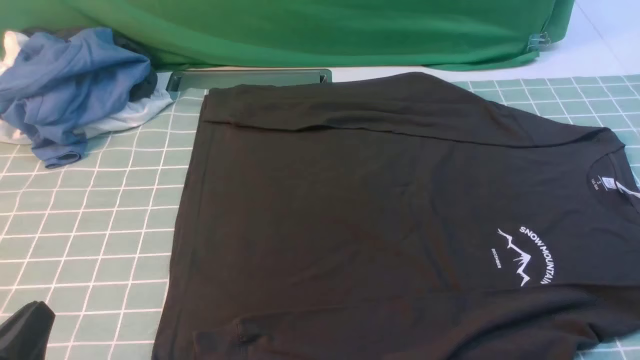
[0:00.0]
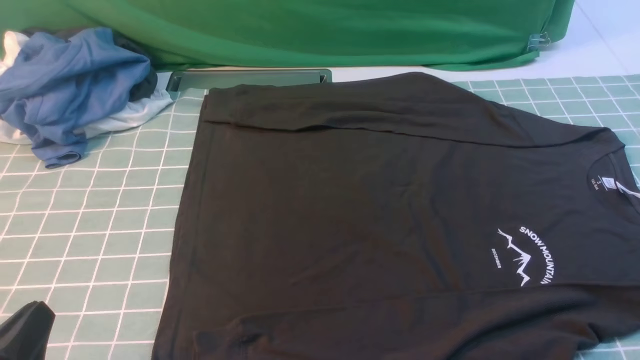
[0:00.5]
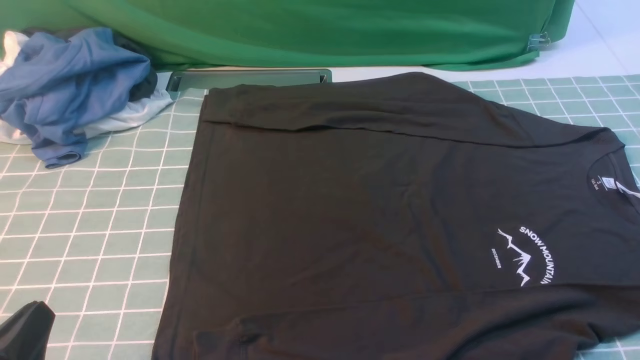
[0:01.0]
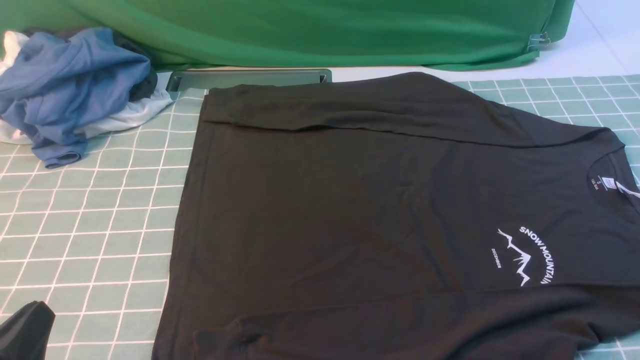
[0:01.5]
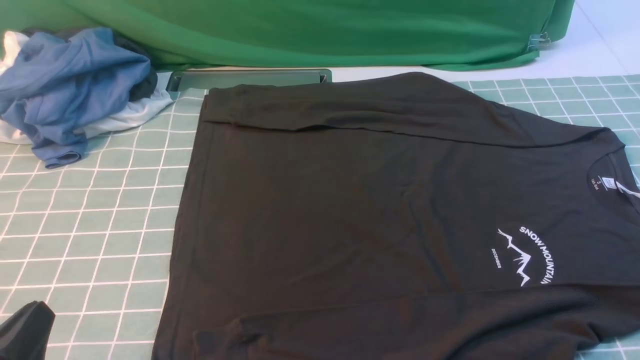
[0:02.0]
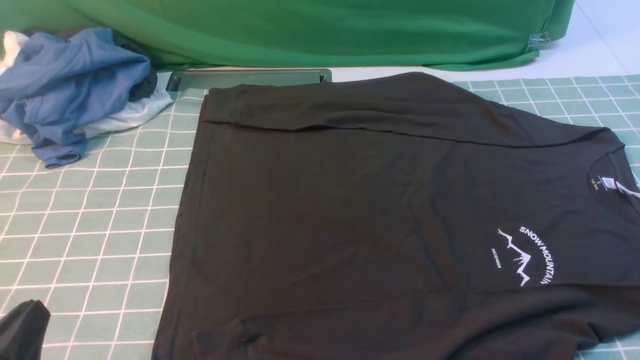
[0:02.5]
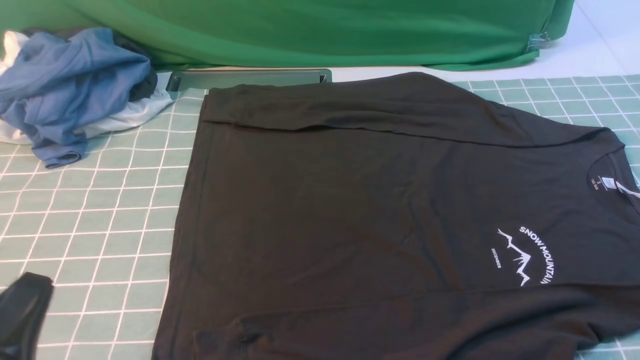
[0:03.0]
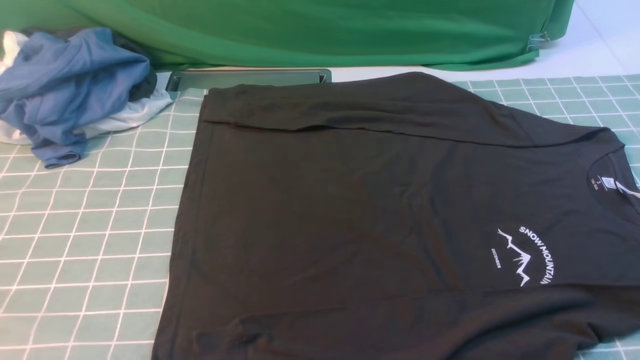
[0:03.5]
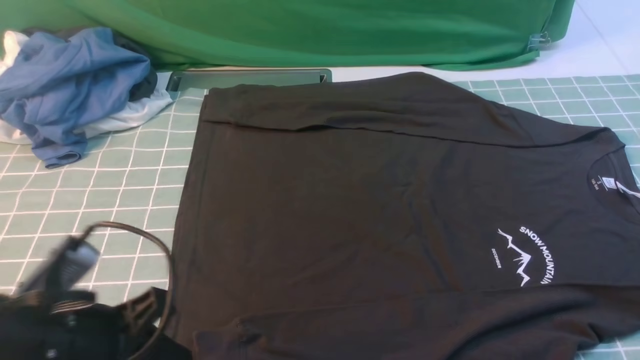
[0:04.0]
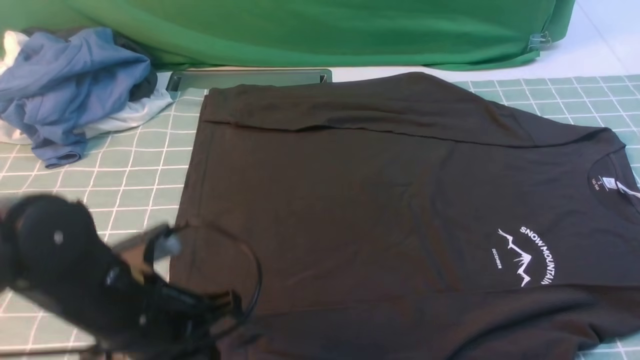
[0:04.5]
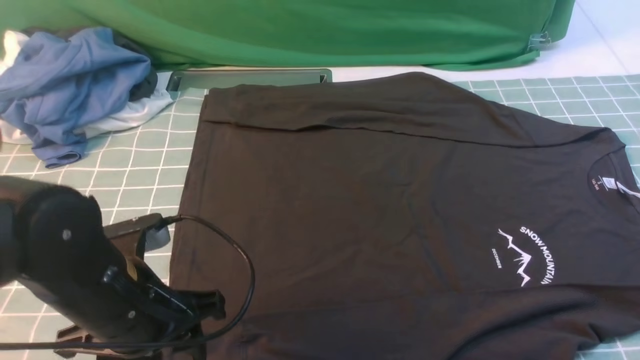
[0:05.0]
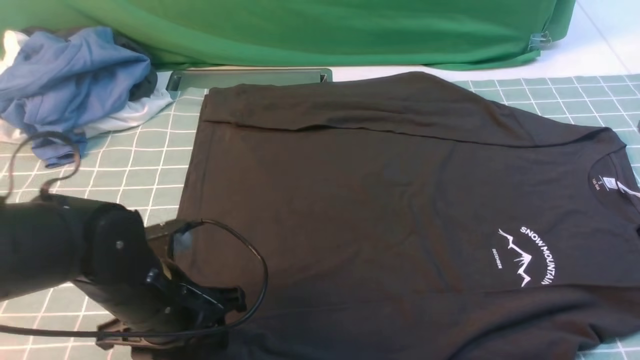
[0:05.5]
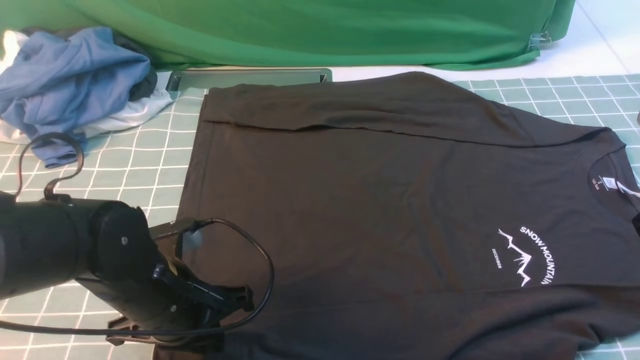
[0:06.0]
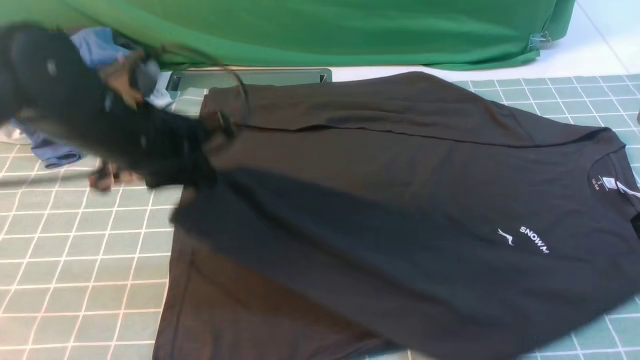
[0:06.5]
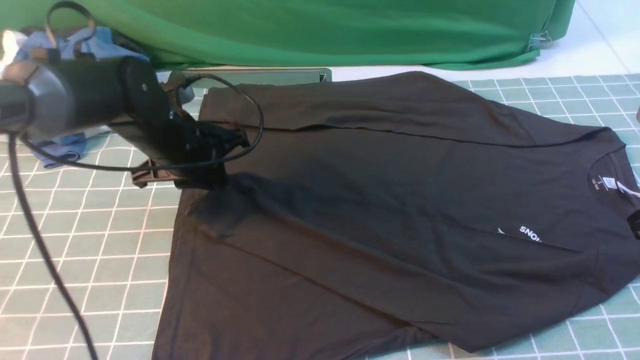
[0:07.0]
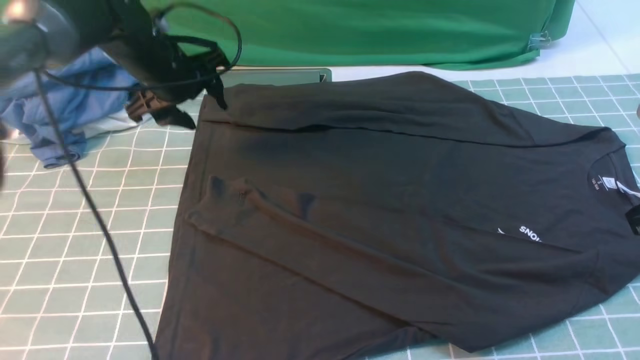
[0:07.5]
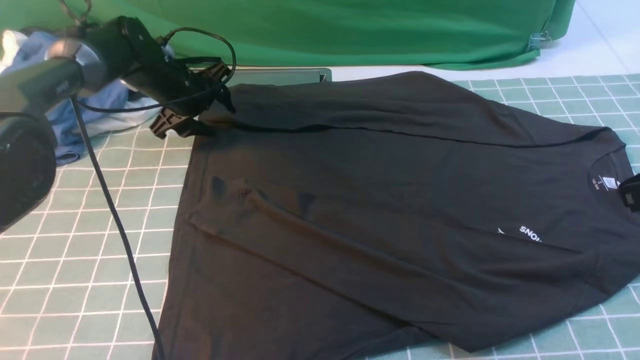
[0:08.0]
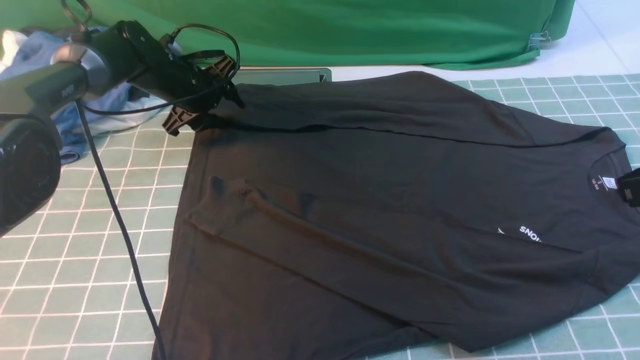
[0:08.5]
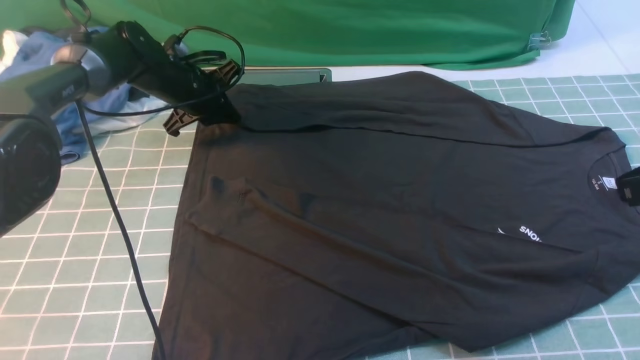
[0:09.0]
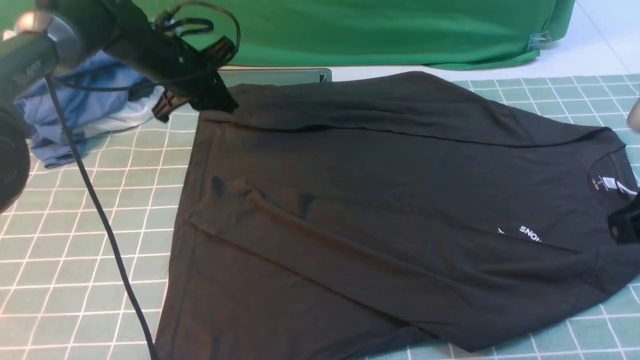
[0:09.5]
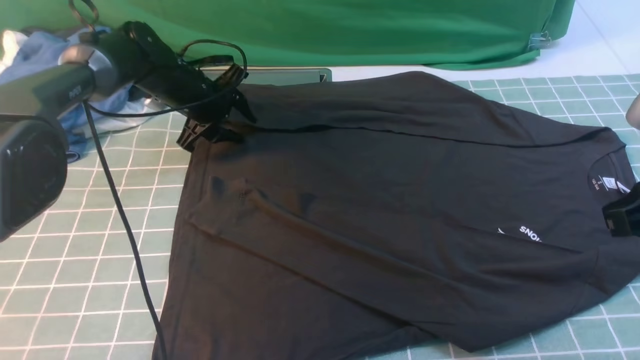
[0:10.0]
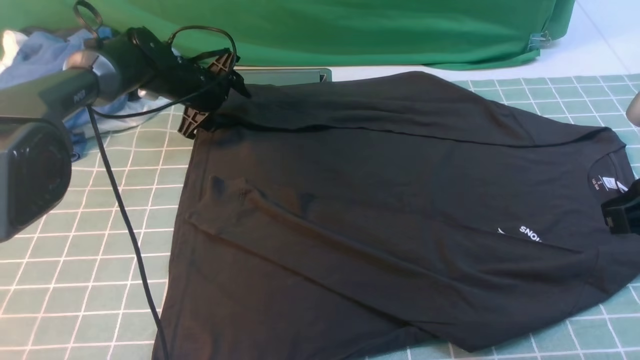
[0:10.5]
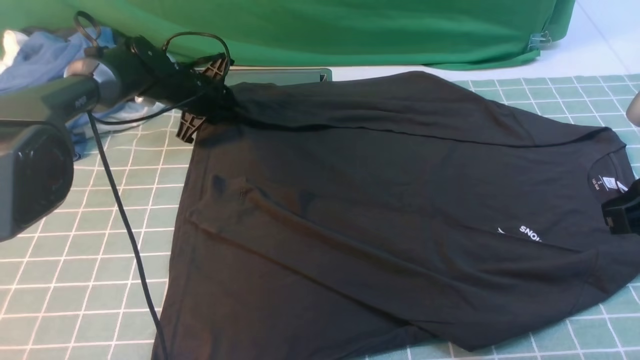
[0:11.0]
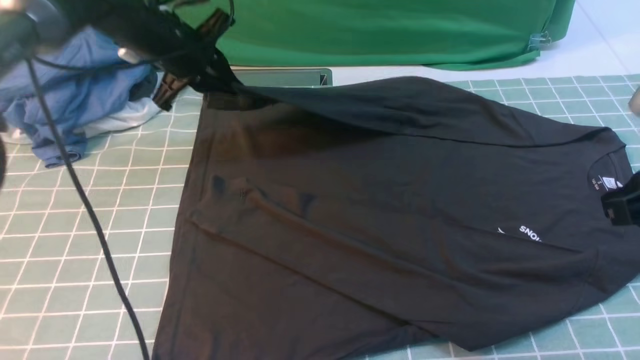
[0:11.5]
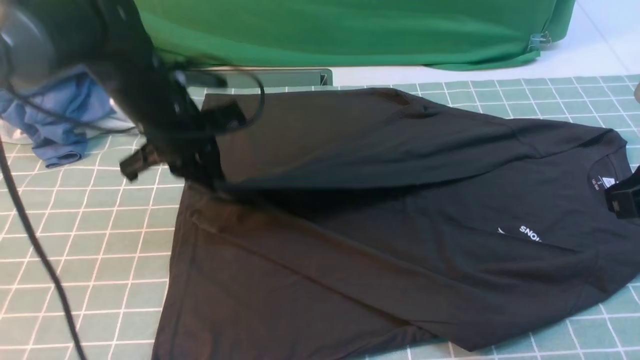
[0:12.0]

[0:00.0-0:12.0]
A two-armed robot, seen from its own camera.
Step, 0.0 to 5.5 s: use the left arm to clamp the cuff closest to it.
Step, 6.5 to 7.0 s: use the left arm to drag and place the cuff at the centered position on the left edge of the fabric.
Step, 7.5 to 11.0 s: use the left arm to clamp the cuff farthest from it.
0.0 to 2.0 s: Both grippers stay about where they are.
2.0 to 4.0 s: The left gripper goes approximately 10 cm forward and to the right.
4.0 to 6.0 s: The right gripper moves forward and upward, approximately 15 cm, while the left gripper is displaced forward and to the right by roughly 10 cm, and opens and closes again.
6.0 to 8.0 s: The left gripper shifts some 30 cm forward, and opens.
8.0 to 10.0 s: The left gripper closes, then reopens.
10.0 to 12.0 s: The left gripper goes roughly 15 cm backward and upward, and closes its fingers.

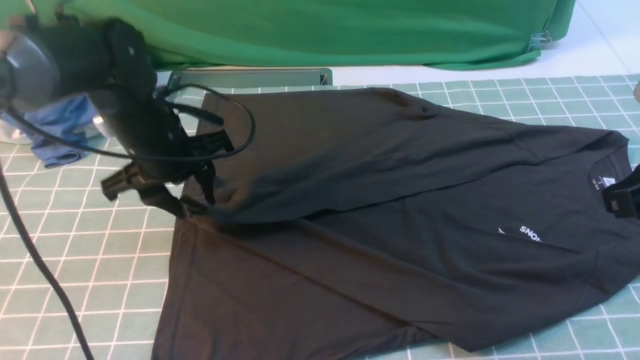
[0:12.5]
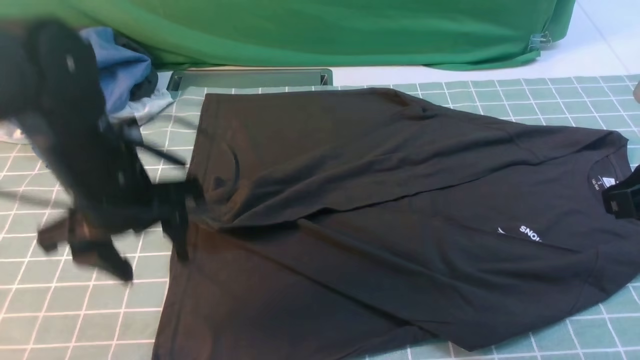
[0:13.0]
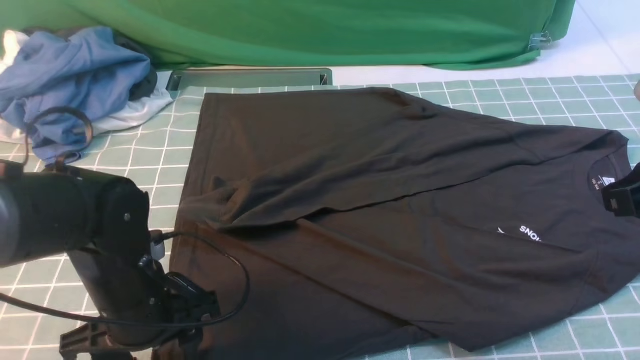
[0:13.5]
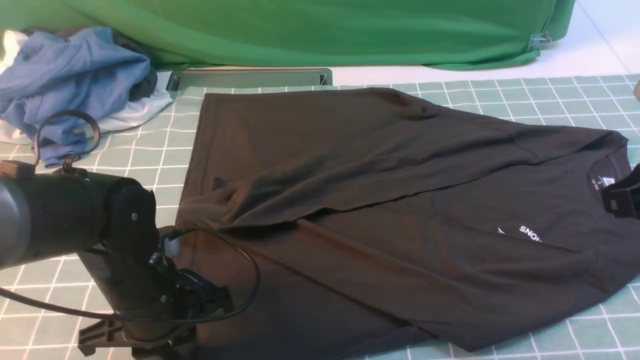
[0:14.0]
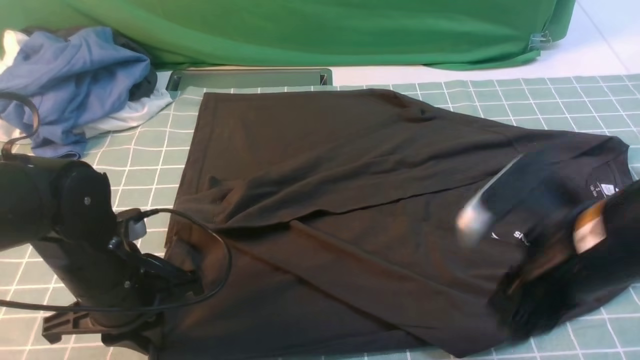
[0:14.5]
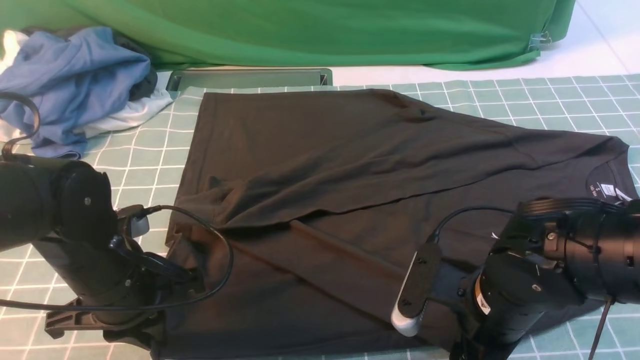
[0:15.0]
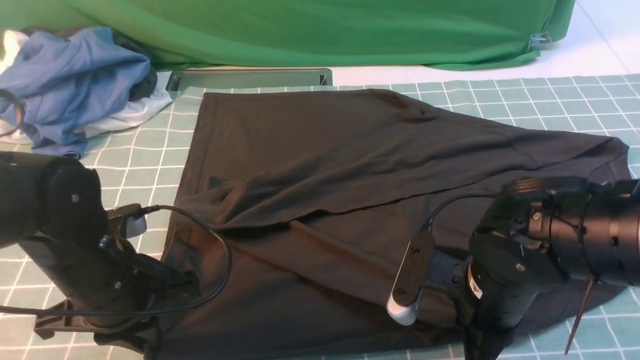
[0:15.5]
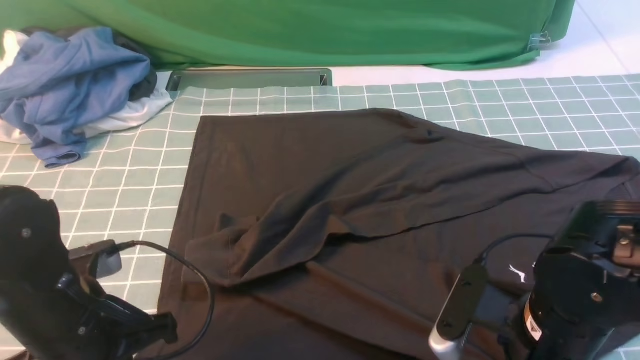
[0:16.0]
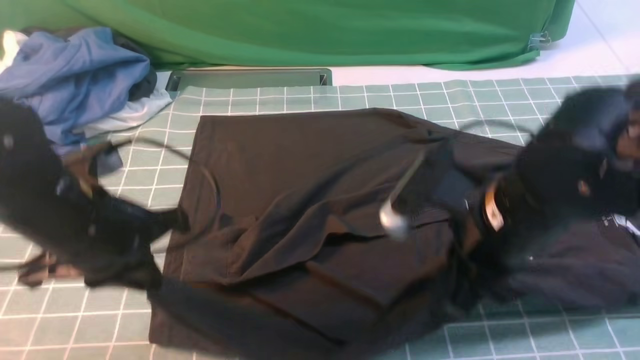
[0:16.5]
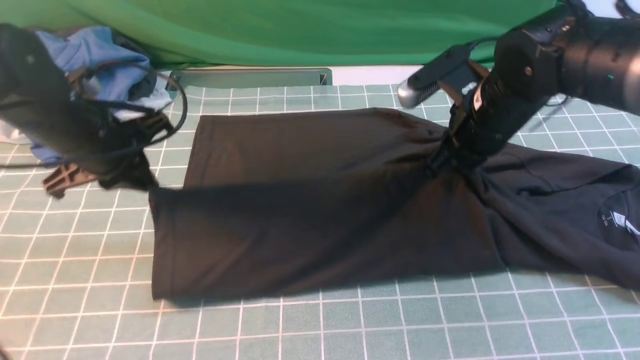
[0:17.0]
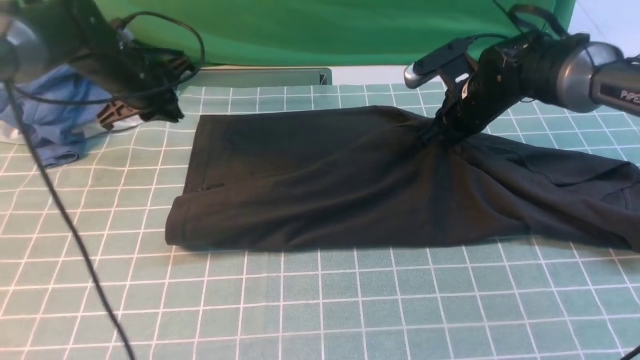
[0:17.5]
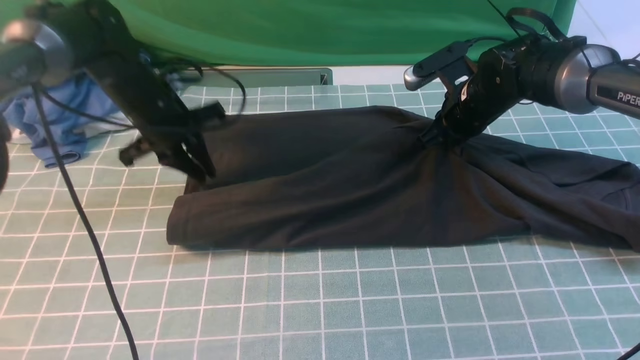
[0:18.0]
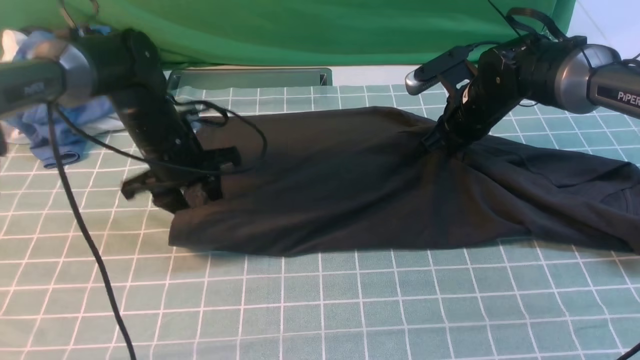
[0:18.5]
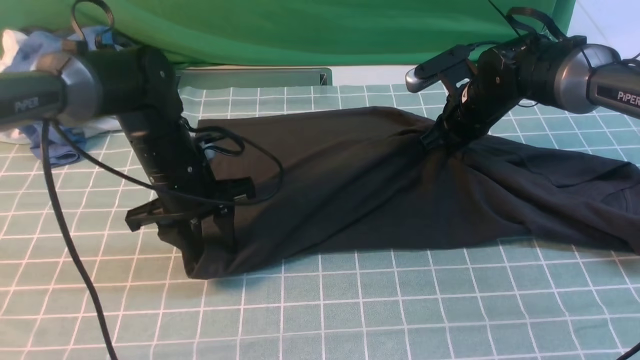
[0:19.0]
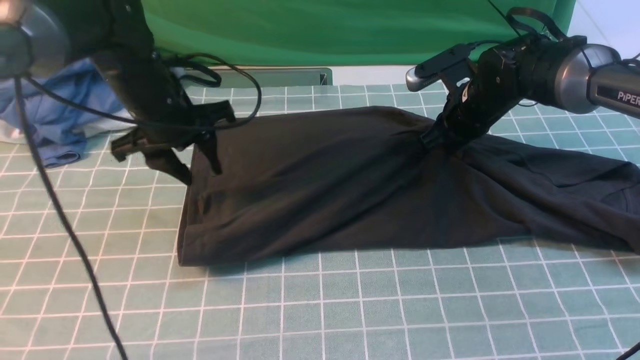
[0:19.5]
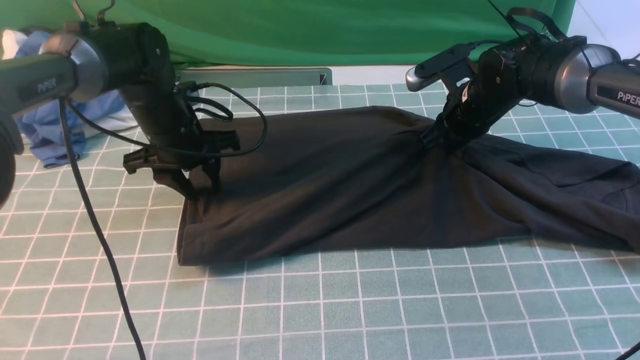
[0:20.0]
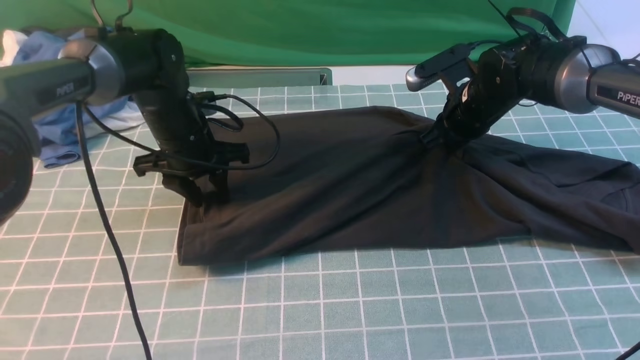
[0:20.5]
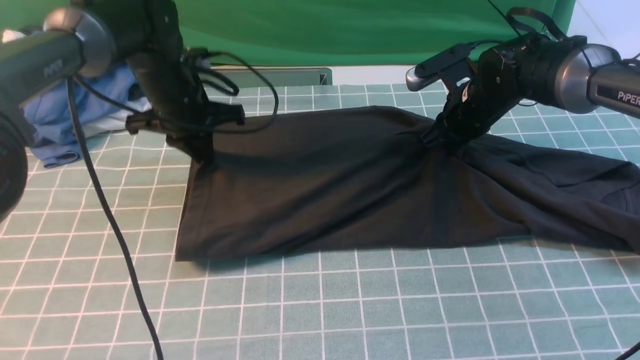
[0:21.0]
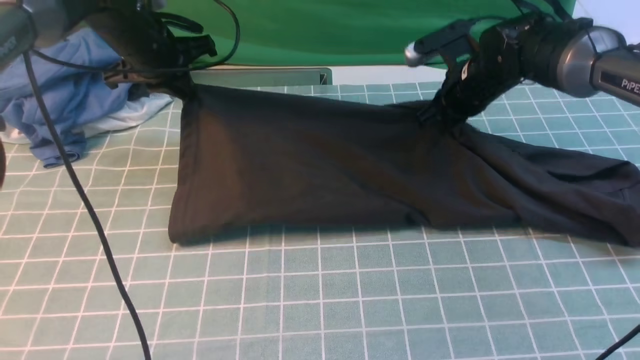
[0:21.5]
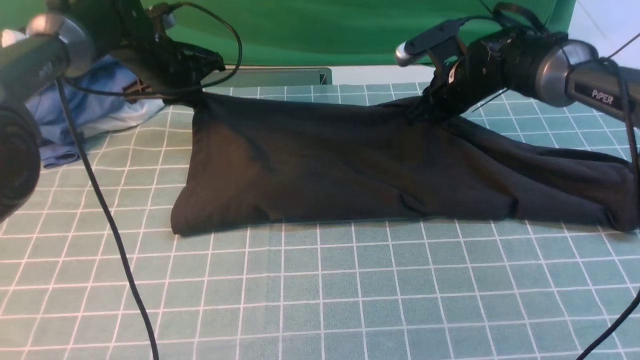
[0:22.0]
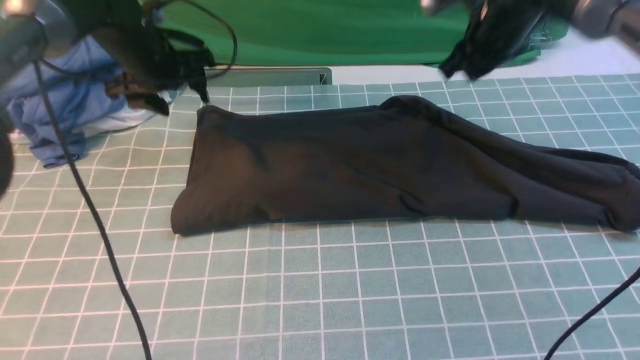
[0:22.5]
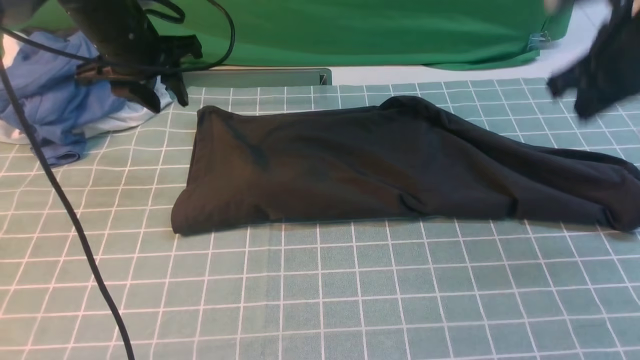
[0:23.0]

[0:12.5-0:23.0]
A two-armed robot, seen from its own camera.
Step, 13.0 to 16.0 s: use both arms simultaneously to clamp the lower edge of the clothing fabric.
Step, 16.5 to 22.0 s: use both arms to drag the lower edge of the fabric forward and fold it over the upper edge.
12.5 to 14.5 s: The left gripper shifts about 15 cm backward, and closes. The right gripper heads to the left and downward, covering about 10 cm.
14.5 to 16.5 s: The right gripper goes roughly 5 cm to the left, travels downward and back again, about 10 cm each way, and closes up. The left gripper travels upward by some 5 cm.
16.5 to 19.0 s: The left gripper goes roughly 15 cm forward and downward, and opens its fingers. The right gripper travels forward by about 20 cm.
19.0 to 21.0 s: The left gripper shifts some 10 cm forward, and closes up.
21.0 to 23.0 s: The right gripper goes some 15 cm upward, backward and to the right. The left gripper shifts some 5 cm upward, and opens.
